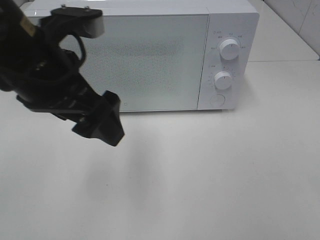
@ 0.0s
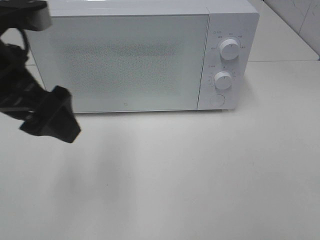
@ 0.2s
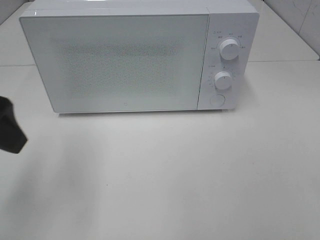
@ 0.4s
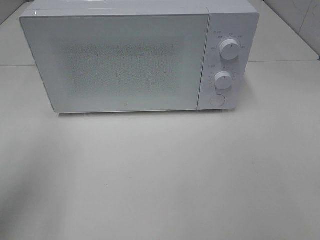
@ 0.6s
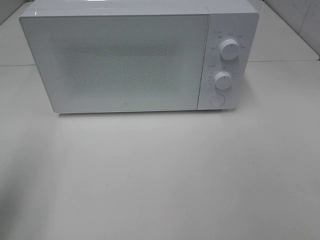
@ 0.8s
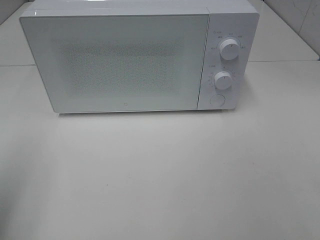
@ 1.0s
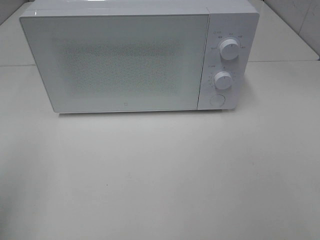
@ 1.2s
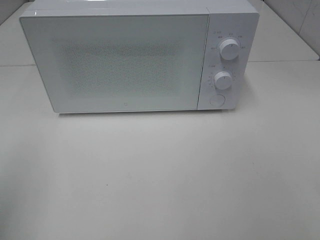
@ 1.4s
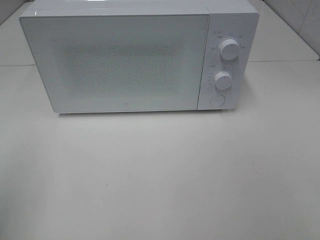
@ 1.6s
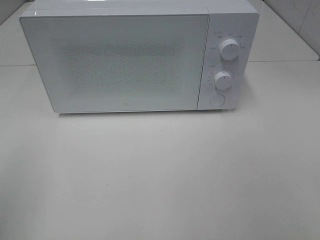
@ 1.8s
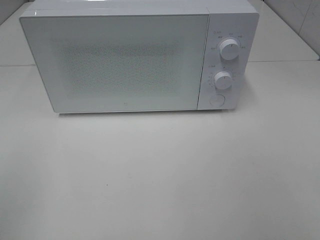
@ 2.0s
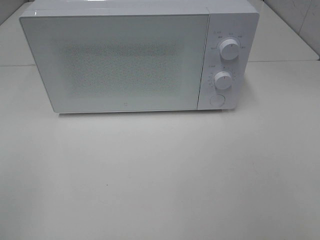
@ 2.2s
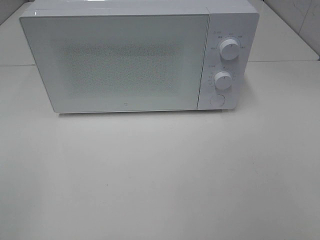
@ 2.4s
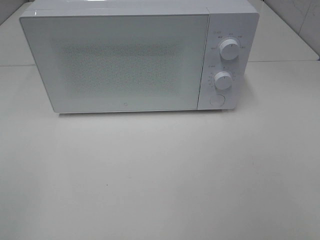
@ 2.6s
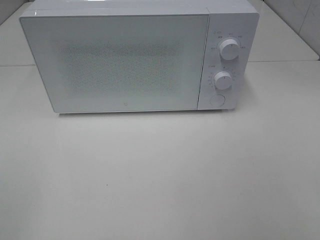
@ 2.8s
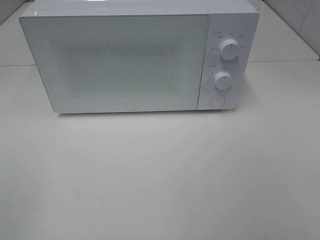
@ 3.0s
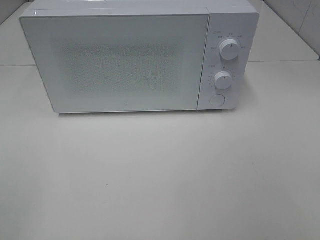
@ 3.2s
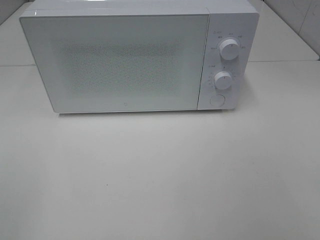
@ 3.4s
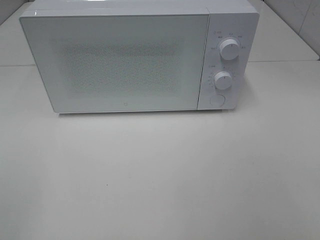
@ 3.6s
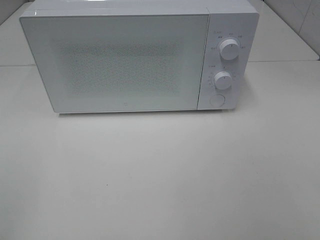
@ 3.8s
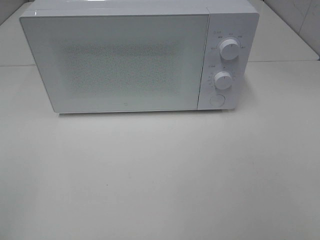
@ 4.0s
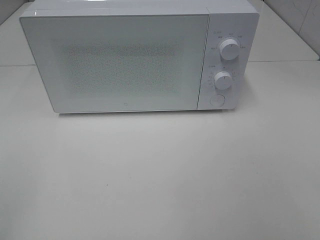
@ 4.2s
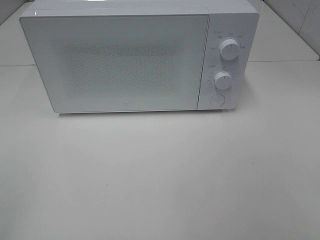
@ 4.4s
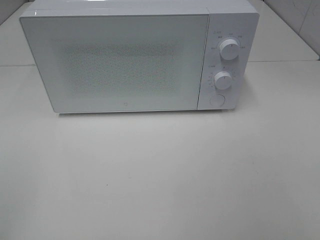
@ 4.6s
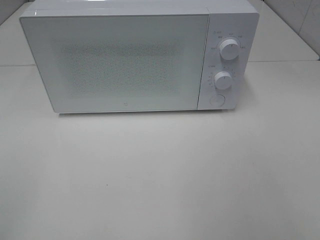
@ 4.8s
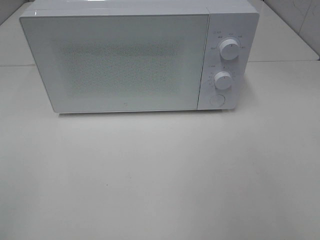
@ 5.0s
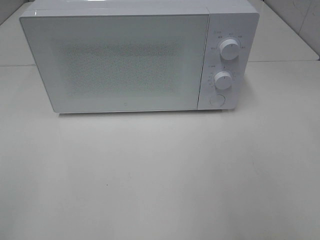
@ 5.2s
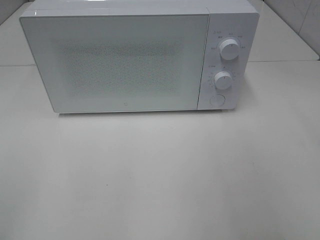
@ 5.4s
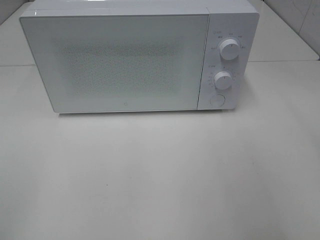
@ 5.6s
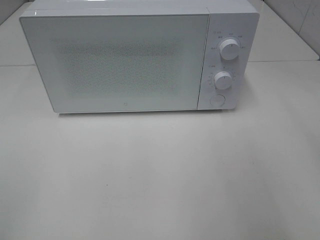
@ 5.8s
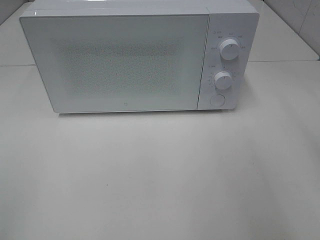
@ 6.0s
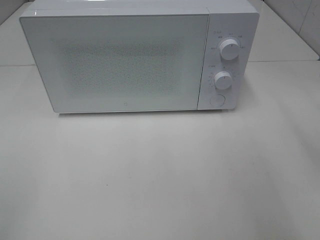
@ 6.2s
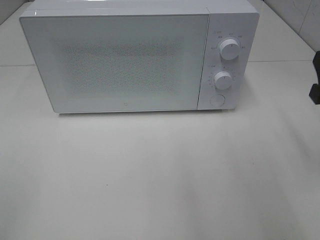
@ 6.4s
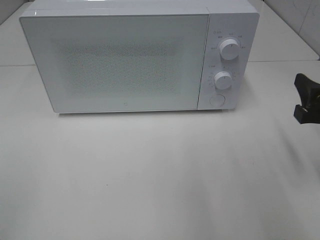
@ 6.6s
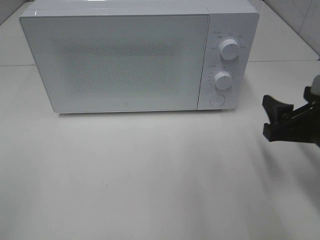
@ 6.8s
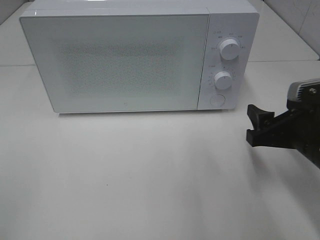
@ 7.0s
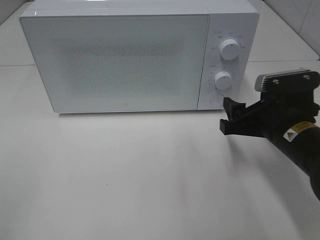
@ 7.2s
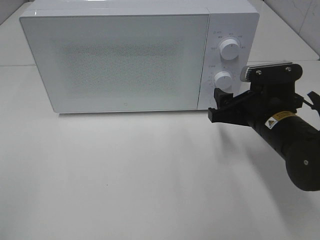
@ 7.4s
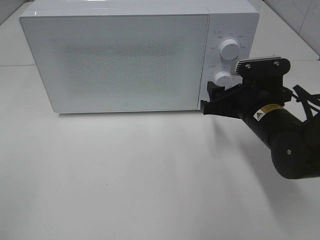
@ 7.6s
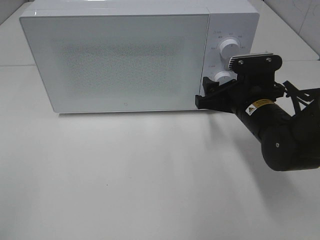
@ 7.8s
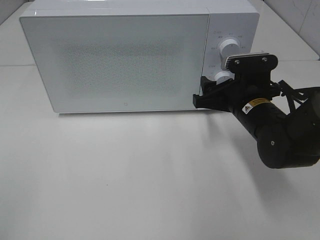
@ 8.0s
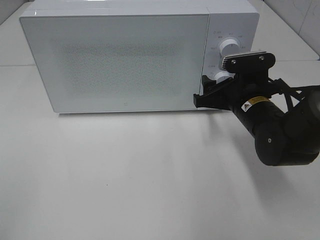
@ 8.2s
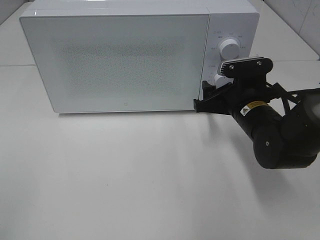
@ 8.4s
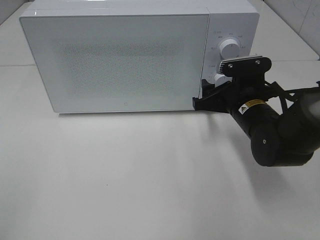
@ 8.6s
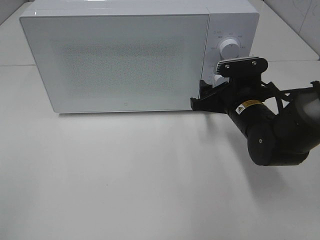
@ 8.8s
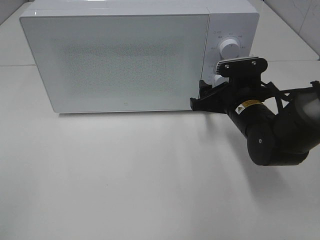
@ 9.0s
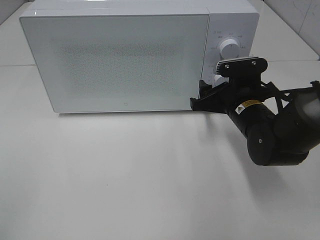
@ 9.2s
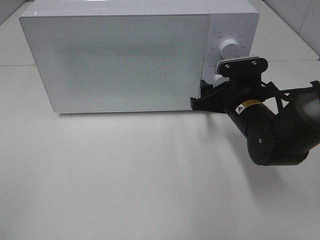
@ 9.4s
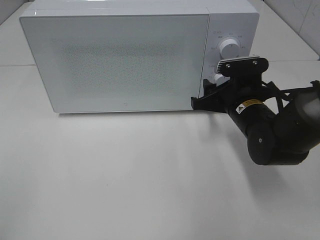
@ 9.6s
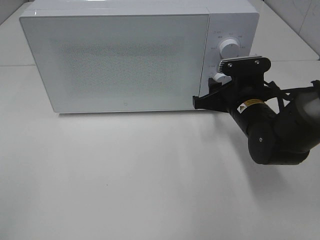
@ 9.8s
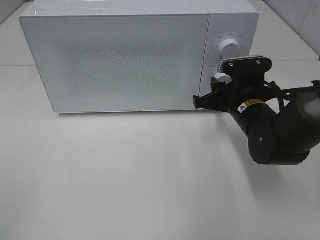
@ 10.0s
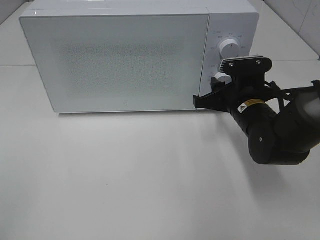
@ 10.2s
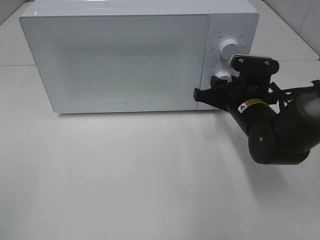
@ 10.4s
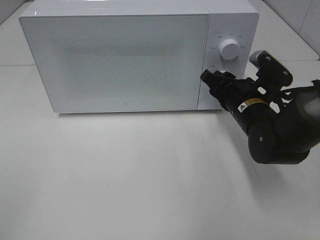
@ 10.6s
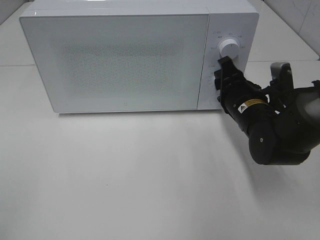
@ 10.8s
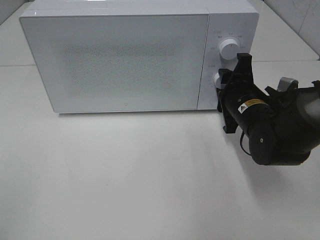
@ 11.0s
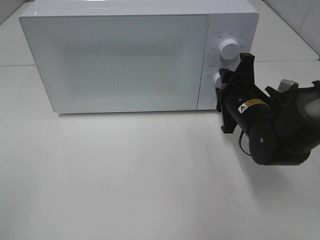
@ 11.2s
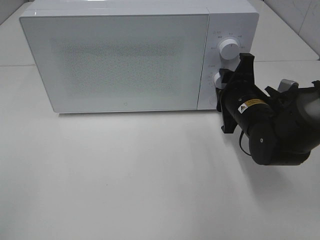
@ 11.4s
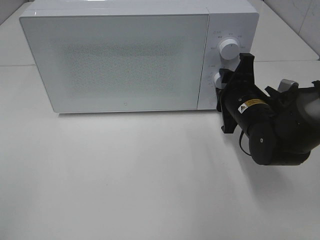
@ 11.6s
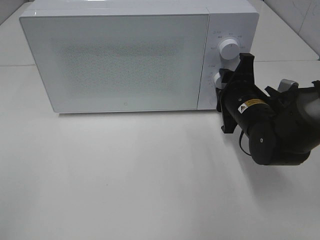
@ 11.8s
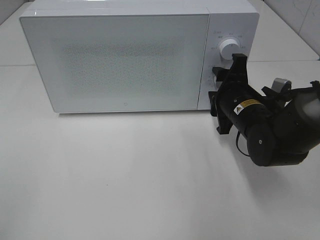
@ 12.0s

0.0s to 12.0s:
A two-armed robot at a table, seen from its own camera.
Task of the whole recording: Heat the burger.
Step, 0.0s to 11.8s: Right hand: twist timer button.
0.0s to 1.6s: The left gripper travels to the left and backward by about 25 cm.
6.0s to 7.6s: The right gripper travels downward, to the left and forward by approximately 20 cm.
7.6s to 10.4s: There are only small adjustments of the grippers.

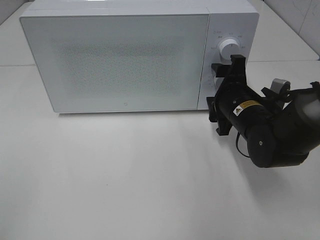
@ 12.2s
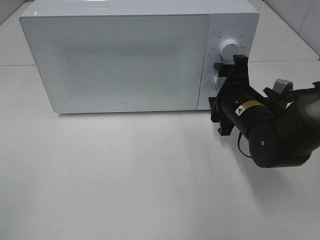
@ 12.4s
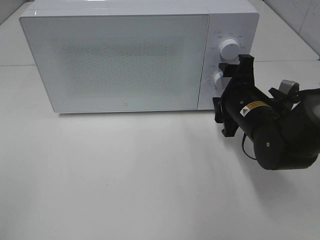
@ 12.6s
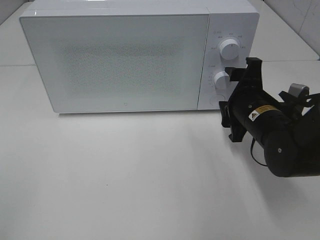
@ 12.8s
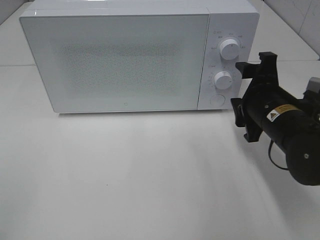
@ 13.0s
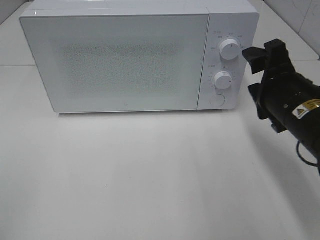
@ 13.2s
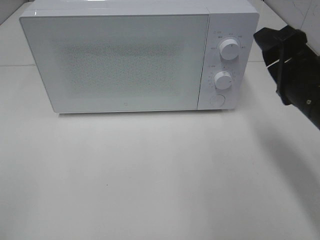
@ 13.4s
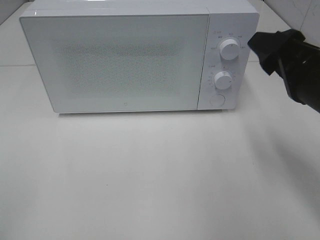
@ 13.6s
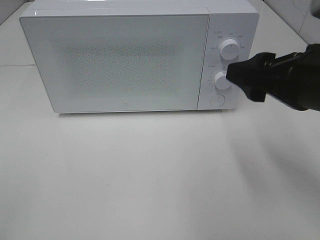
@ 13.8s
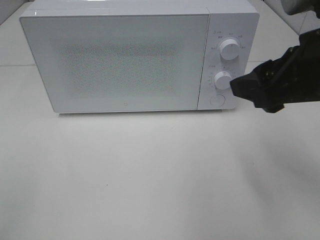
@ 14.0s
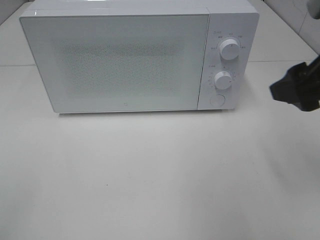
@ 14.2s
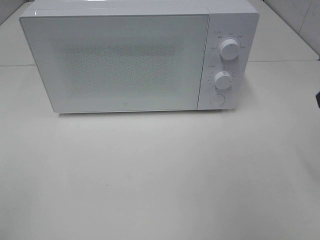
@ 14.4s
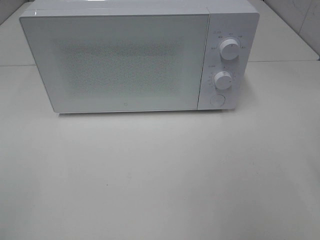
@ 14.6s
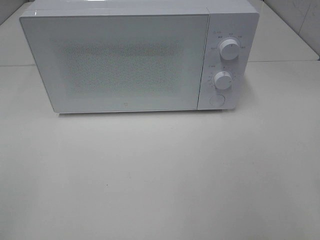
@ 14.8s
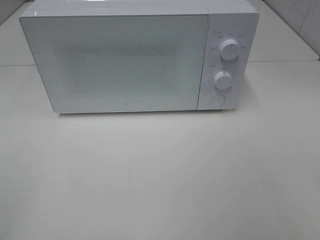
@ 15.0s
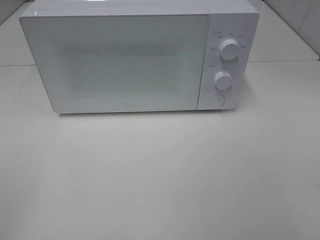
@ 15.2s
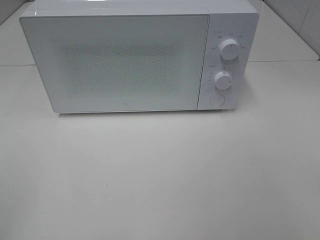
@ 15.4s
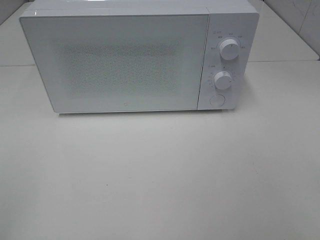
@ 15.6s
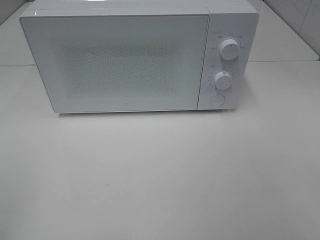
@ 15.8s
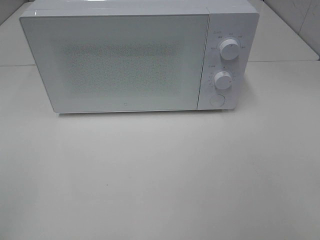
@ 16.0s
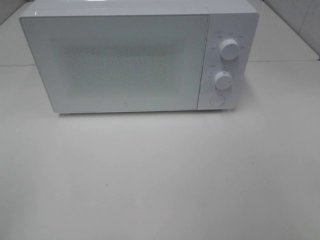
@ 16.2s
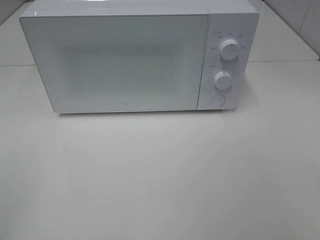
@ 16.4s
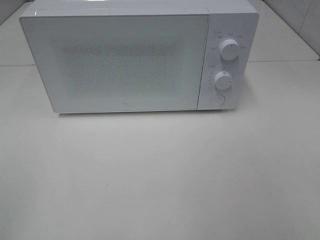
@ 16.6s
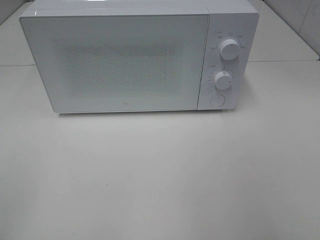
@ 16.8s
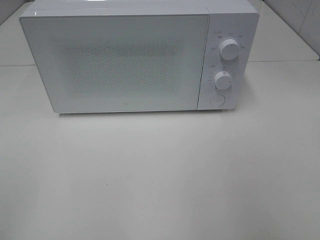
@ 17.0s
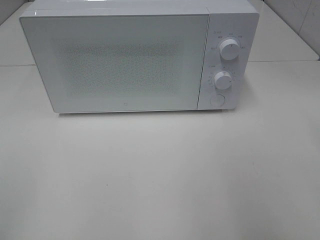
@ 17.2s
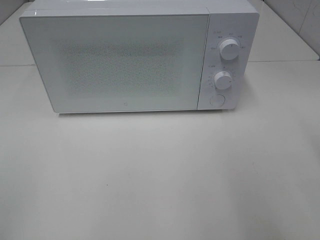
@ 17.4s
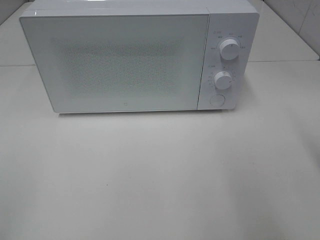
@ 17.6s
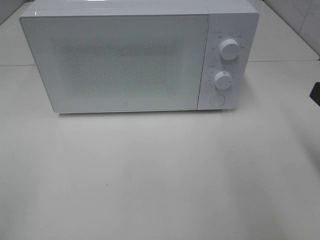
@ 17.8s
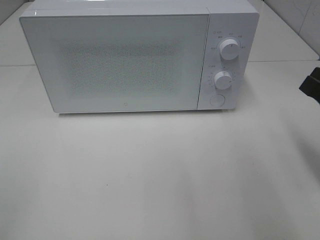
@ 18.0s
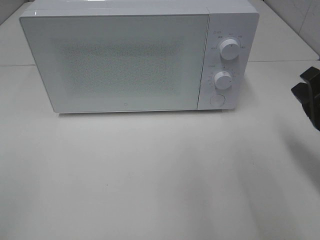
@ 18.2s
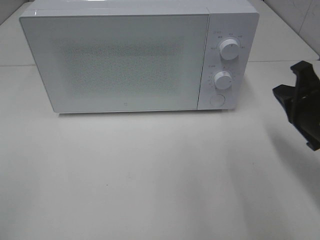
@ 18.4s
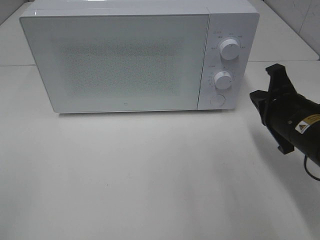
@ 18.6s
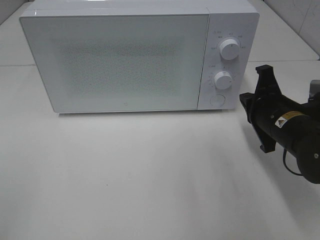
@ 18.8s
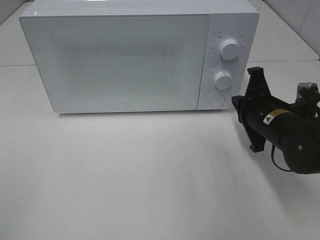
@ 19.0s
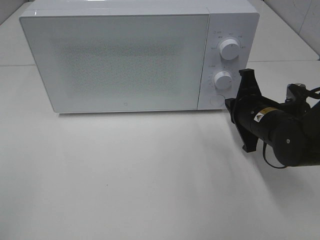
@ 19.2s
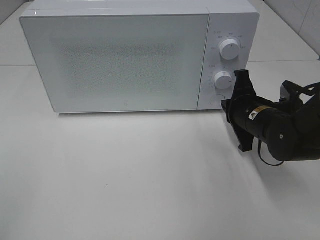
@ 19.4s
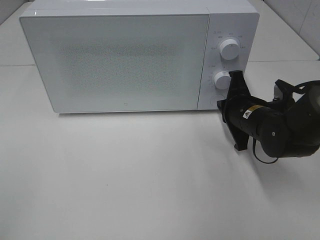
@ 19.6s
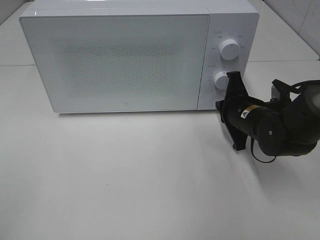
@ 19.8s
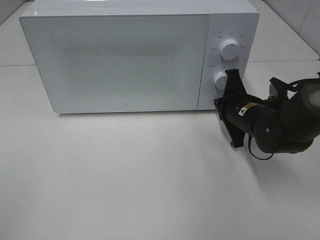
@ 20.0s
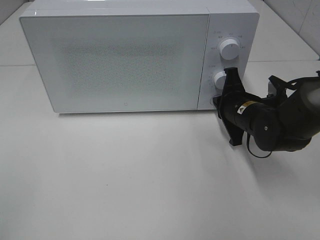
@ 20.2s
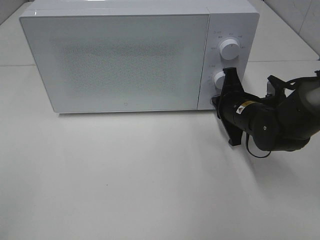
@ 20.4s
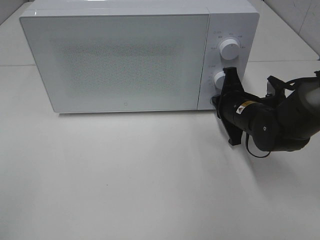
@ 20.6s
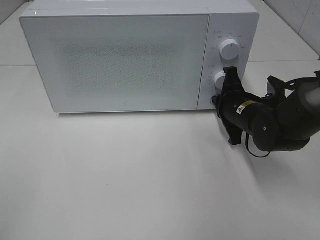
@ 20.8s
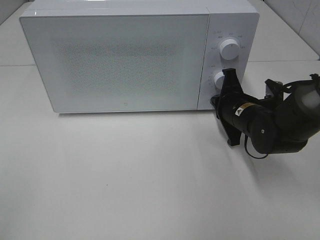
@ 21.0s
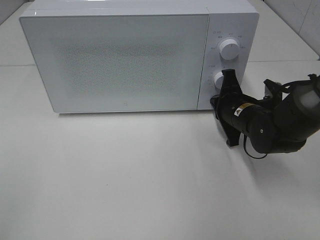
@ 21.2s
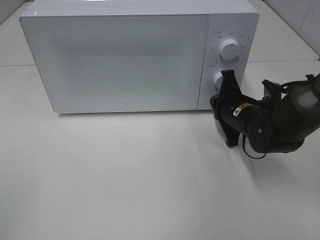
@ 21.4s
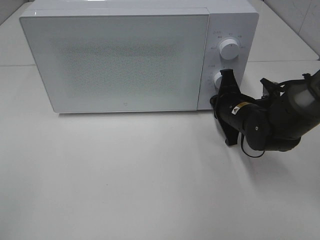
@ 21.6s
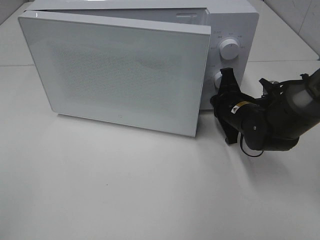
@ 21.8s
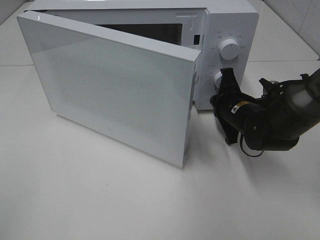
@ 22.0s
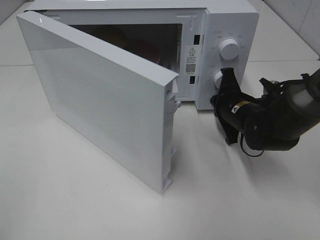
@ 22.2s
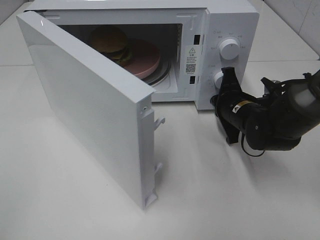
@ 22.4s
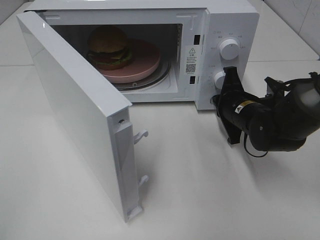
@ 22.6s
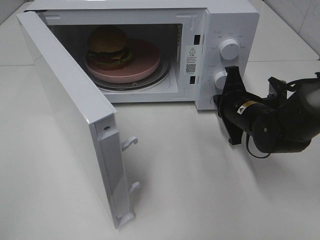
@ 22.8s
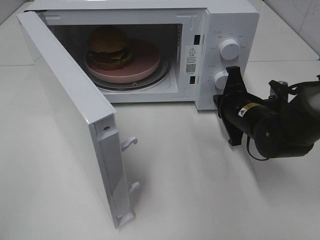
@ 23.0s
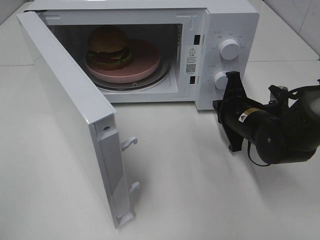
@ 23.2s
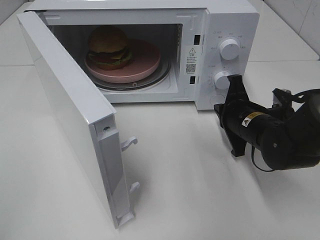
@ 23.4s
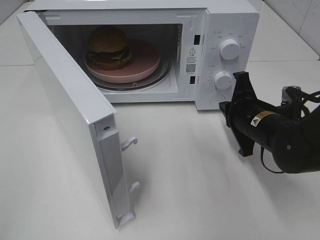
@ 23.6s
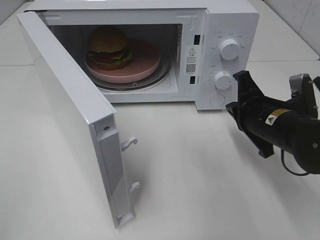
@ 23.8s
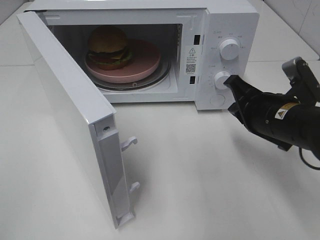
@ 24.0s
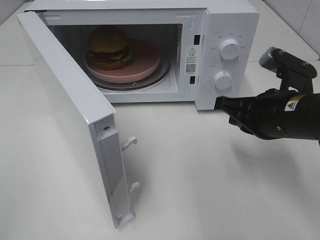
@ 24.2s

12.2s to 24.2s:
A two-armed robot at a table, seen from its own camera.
Task of the whole recording: Heat the burger.
Step, 12.2s to 23.0s: Right hand: press the switch.
12.2s to 13.8s: The right gripper travels upward and backward by roughly 20 cm.
13.8s to 15.2s: The right gripper travels backward and to the right by approximately 20 cm.
16.6s to 18.2s: The right gripper heads forward and downward, covering about 25 cm, and closes its fingers.
18.2s to 19.8s: The right gripper shifts roughly 15 cm forward, to the left and downward.
19.8s to 21.2s: The grippers make only small movements.
22.6s to 24.2s: The right gripper shifts some 15 cm backward and upward.
